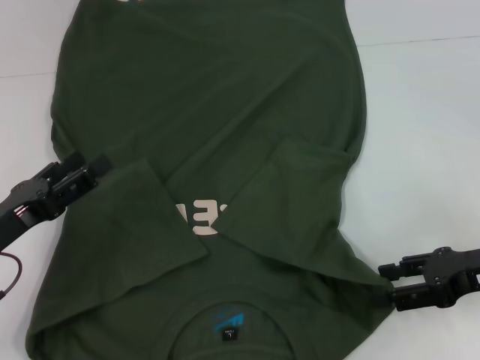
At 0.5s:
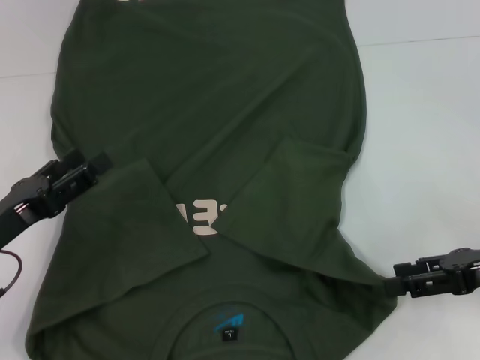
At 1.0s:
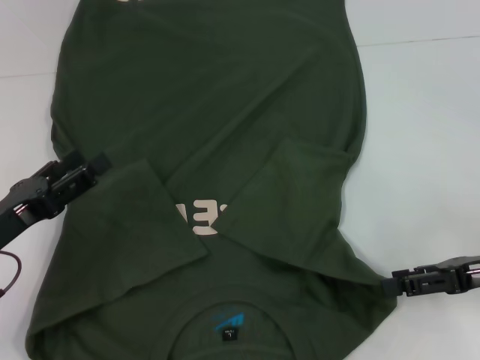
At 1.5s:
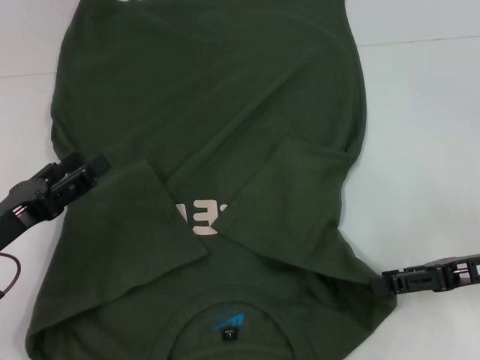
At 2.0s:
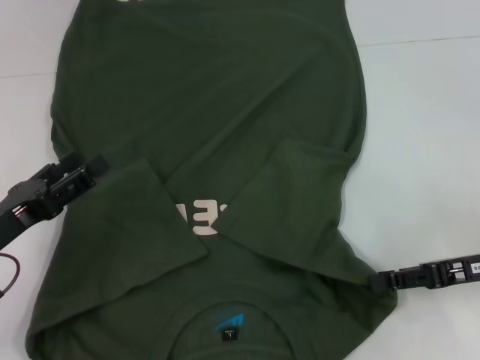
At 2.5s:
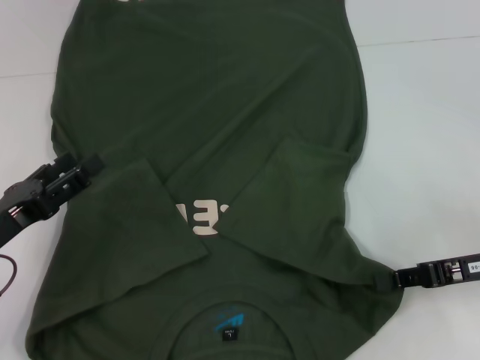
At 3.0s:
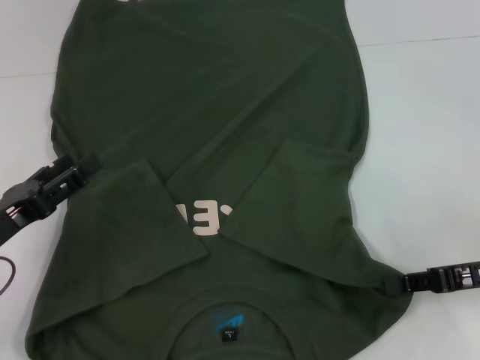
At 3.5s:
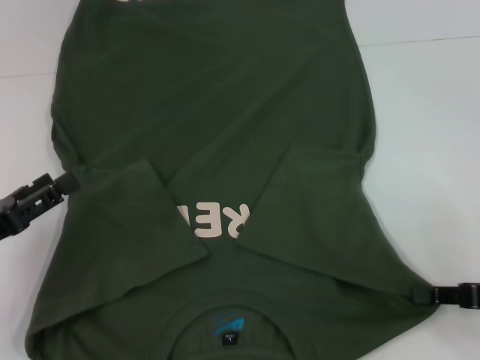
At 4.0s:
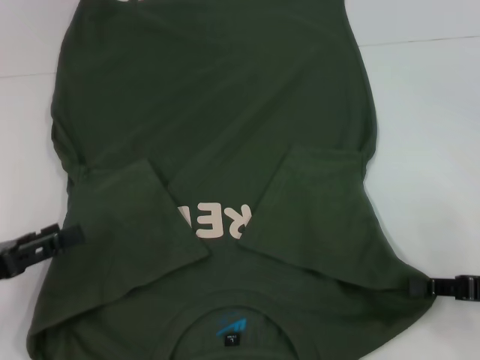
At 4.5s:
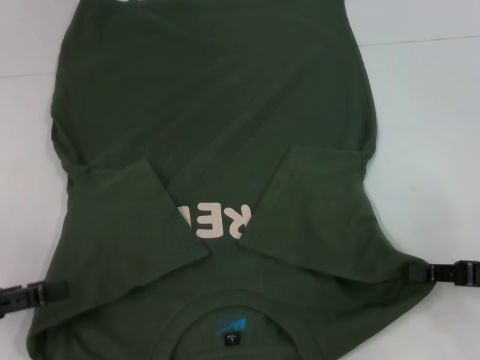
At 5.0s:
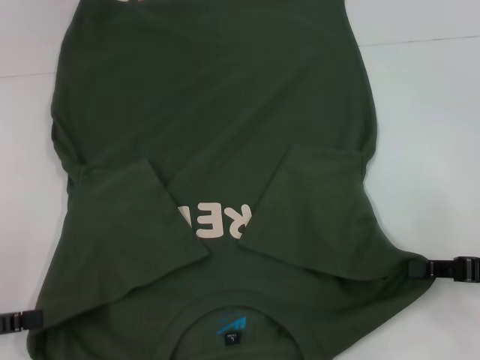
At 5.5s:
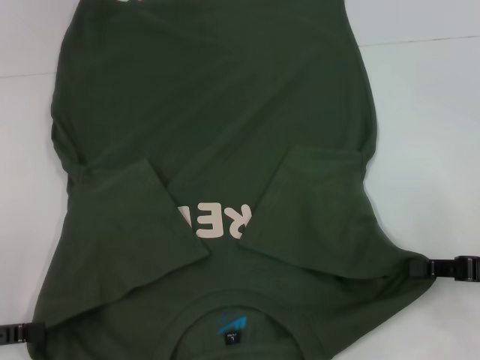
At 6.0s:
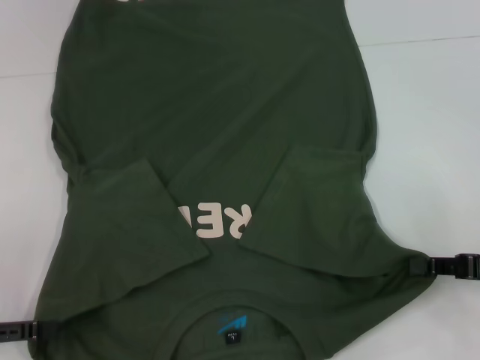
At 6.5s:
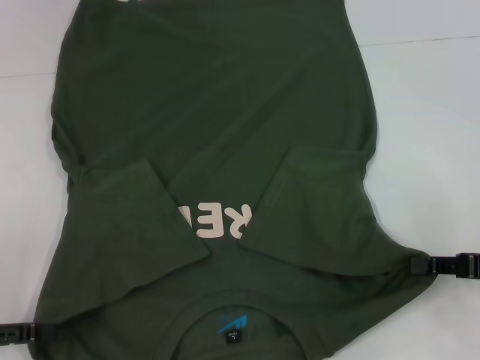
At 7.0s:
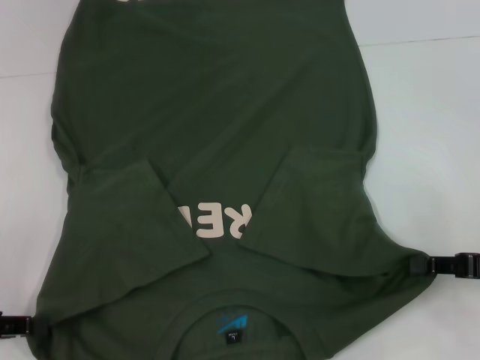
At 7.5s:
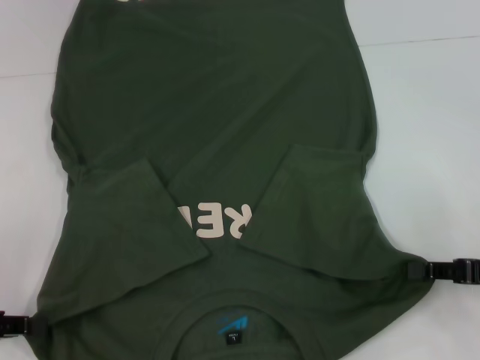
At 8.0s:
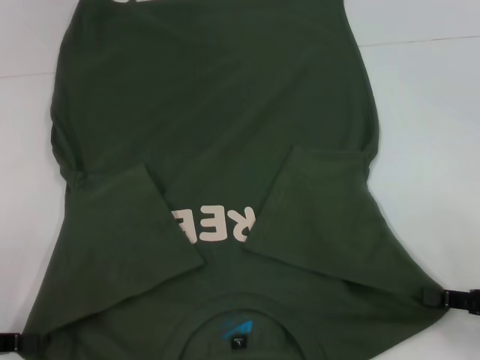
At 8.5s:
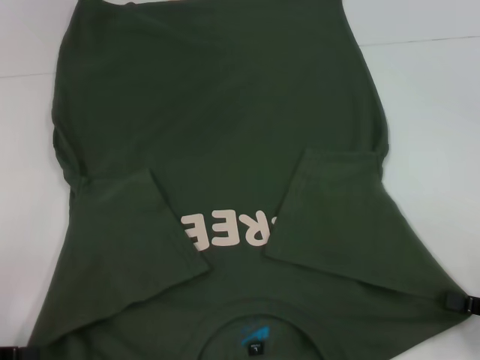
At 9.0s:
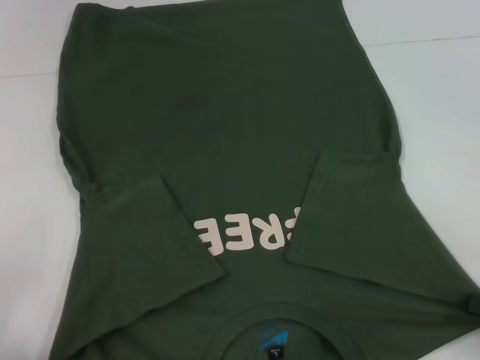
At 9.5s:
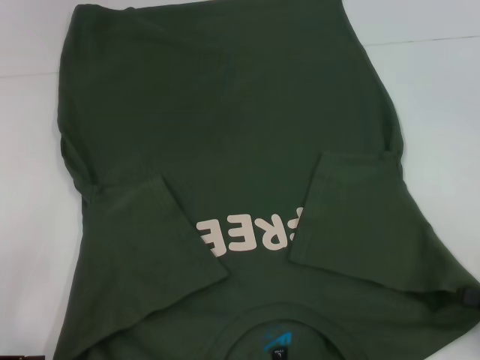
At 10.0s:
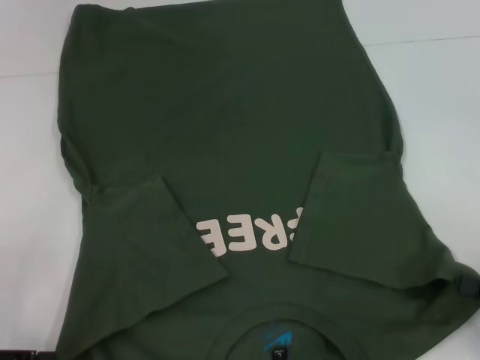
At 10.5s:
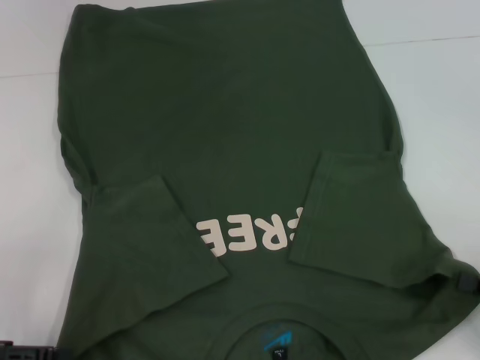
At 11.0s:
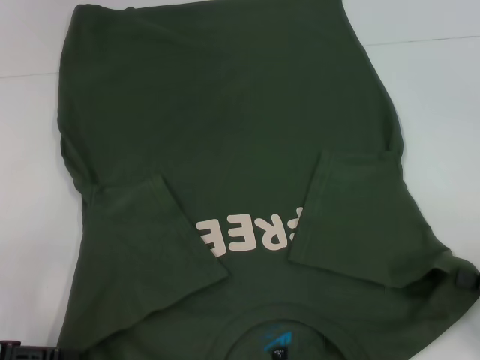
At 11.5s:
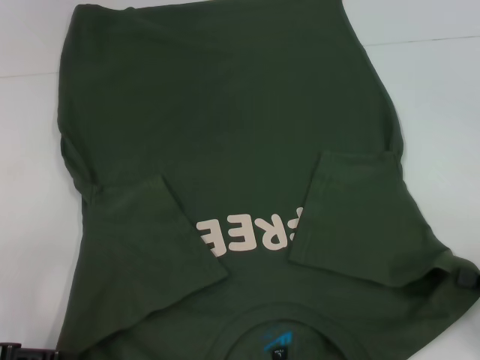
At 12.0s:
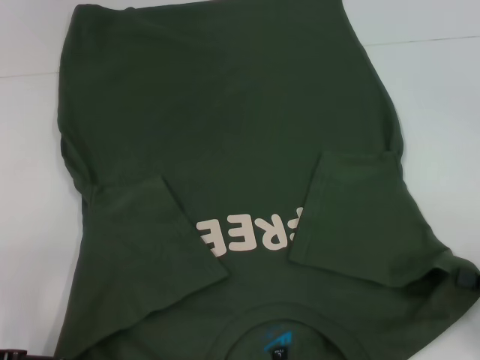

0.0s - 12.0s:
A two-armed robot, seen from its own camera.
Step, 0.0s - 2.5s: Grab the bottom right corner with your right hand.
Step, 3.0s - 8.0s: Grab the bottom left corner with your left hand.
2.0s - 4.0s: The left gripper ends up approximately 5 cm from where it was. Meanwhile the right gripper moves some 5 cm, and closes its fingers.
6.0s - 8.0s: The left gripper closes.
8.0s - 12.0s: The grippers stay close to where they were, moving slightly.

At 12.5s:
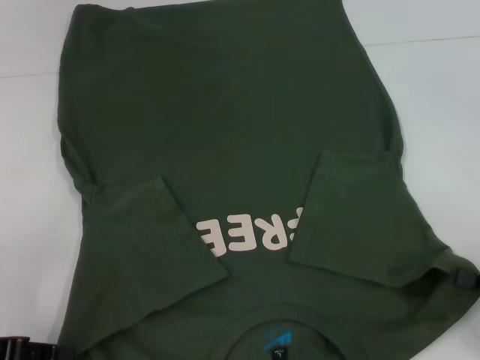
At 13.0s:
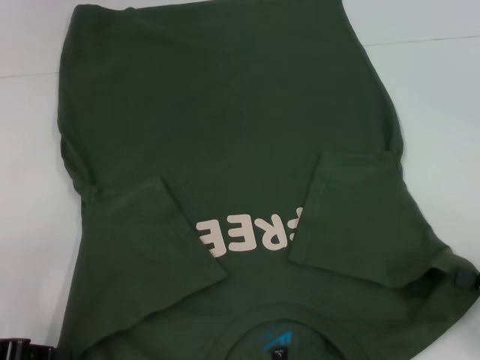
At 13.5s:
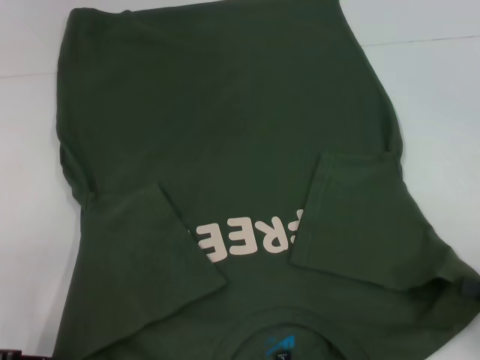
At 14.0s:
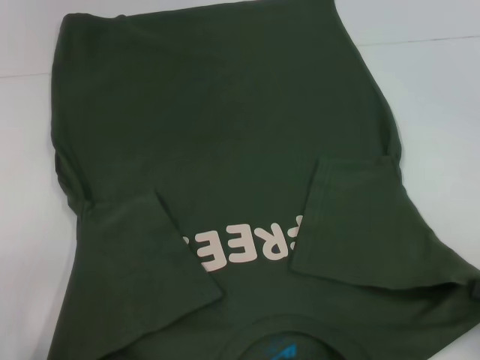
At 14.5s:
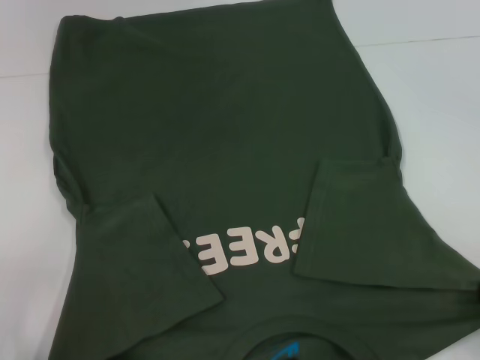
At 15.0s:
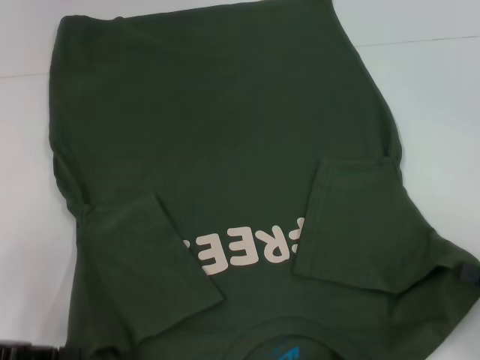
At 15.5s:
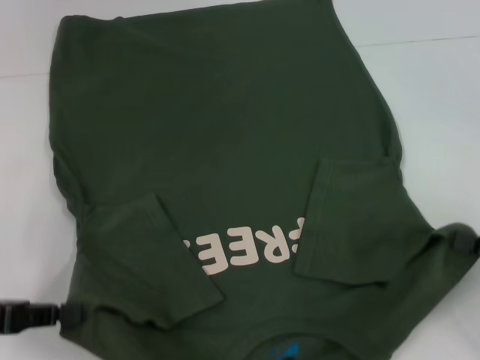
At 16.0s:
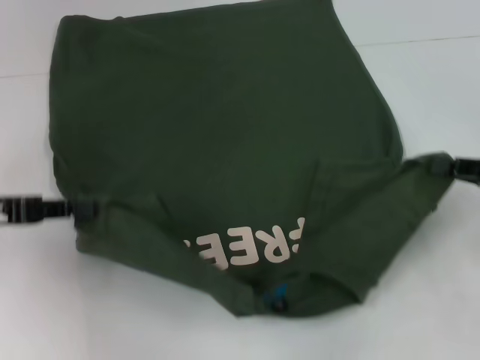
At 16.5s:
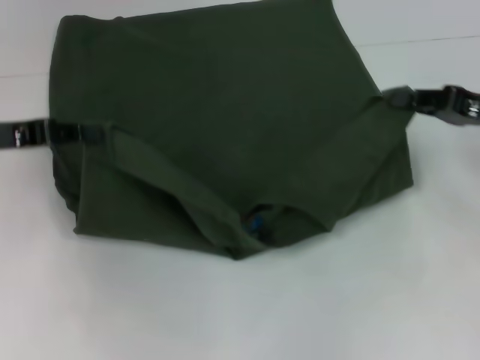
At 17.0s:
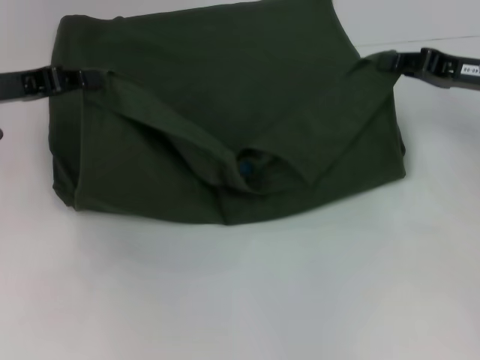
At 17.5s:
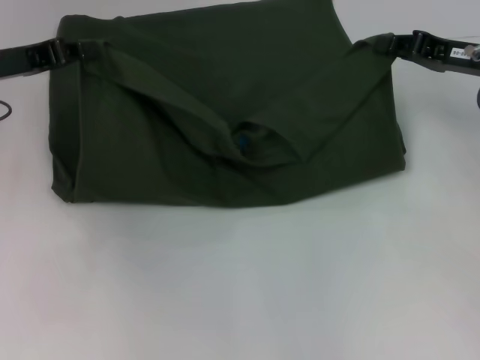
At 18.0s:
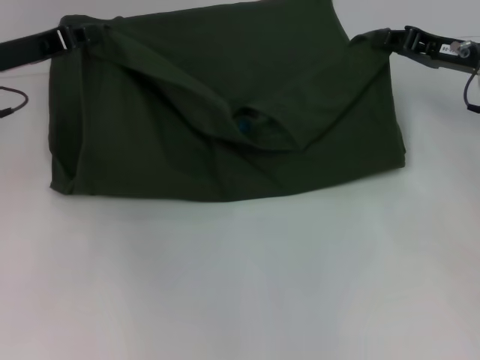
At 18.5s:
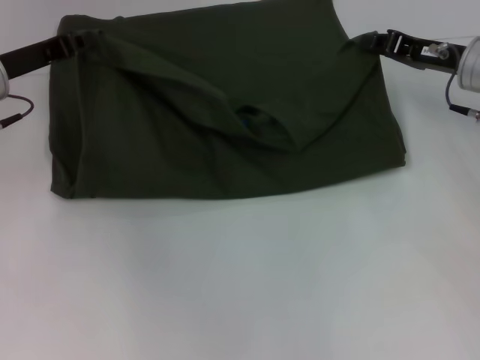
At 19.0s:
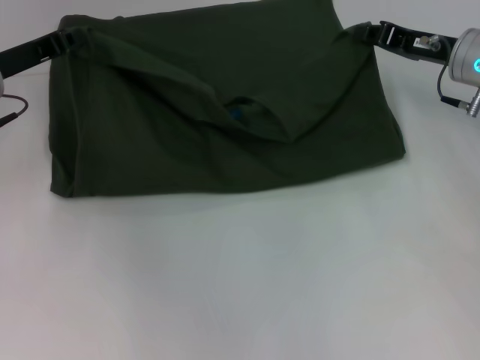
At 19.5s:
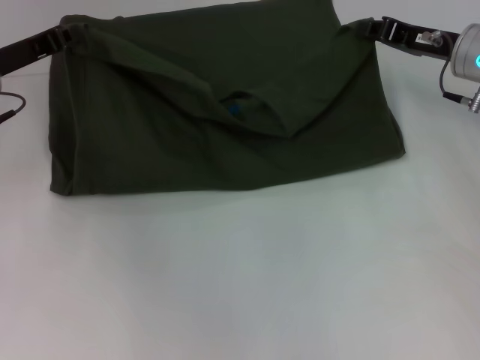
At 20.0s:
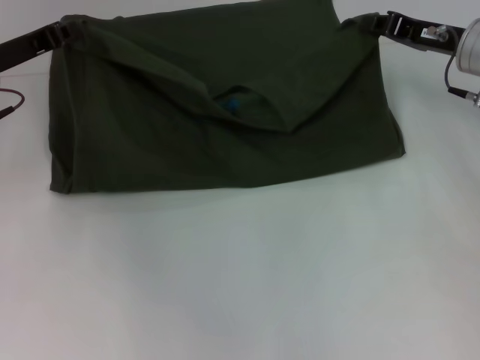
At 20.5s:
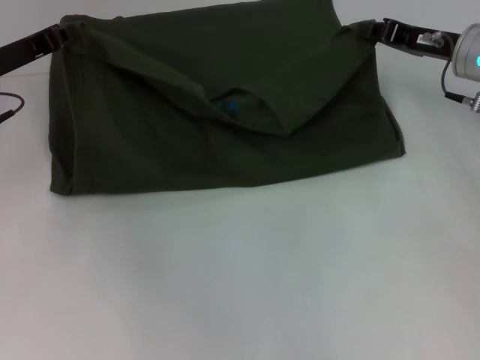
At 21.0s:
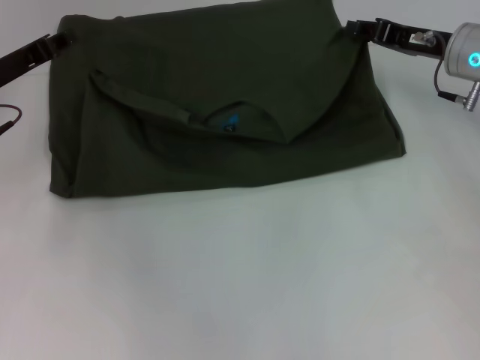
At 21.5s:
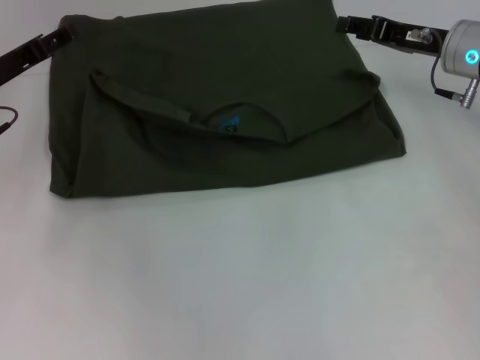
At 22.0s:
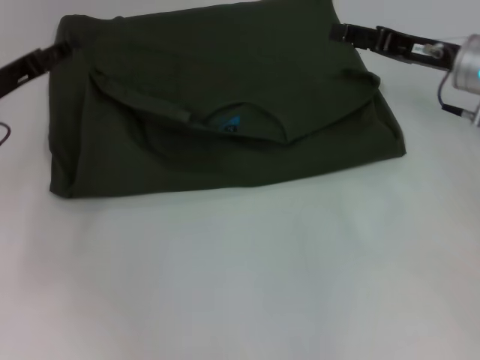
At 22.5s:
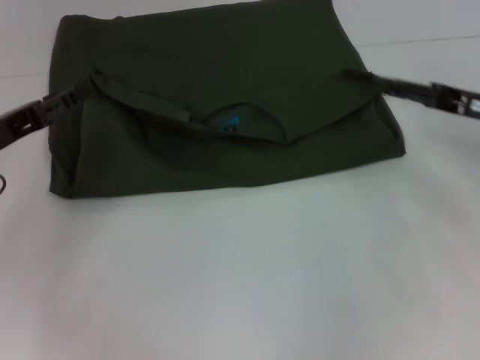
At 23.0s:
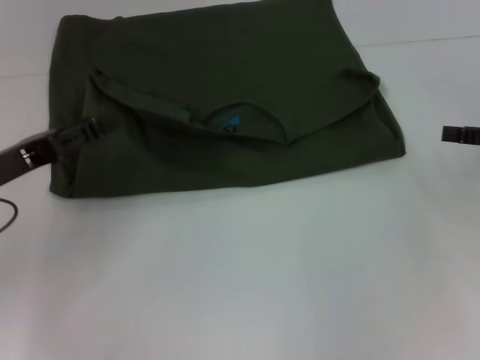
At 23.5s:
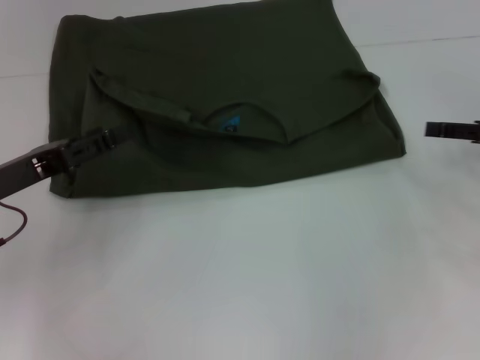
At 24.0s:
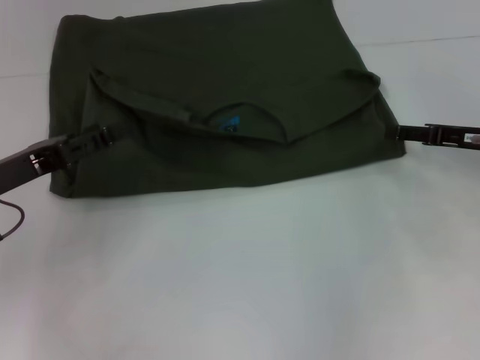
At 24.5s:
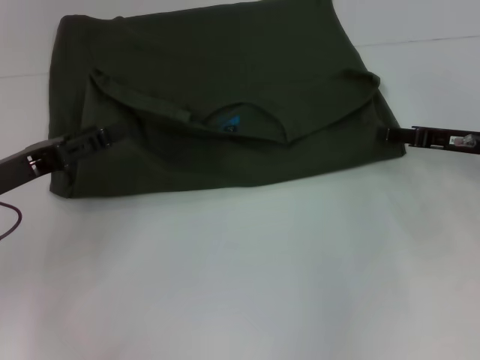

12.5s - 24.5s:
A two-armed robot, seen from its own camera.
Step, 12.5s - 21.5s: Fold the clothes with your left hand.
Step, 12.5s - 21.5s: Fold the clothes with your right hand.
12.5s - 14.5s: There are only small adjustments of the grippers.
14.5s - 16.5s: Both grippers move forward and upward, some 20 cm.
16.5s - 18.5s: The grippers both shift forward by approximately 5 cm.
18.5s - 20.5s: The grippers make only small movements.
20.5s - 22.5s: Both grippers move backward, about 10 cm. The right gripper opens its fingers; the left gripper opens.

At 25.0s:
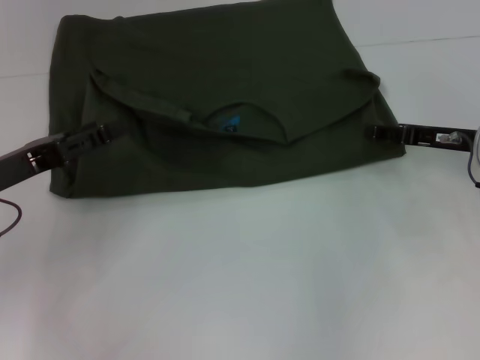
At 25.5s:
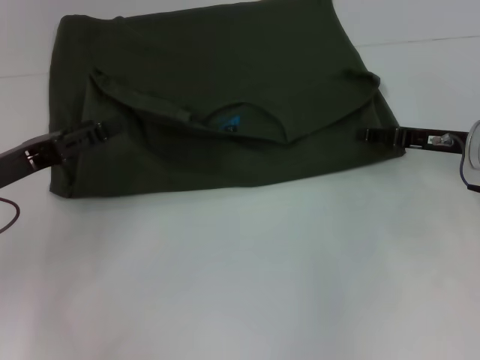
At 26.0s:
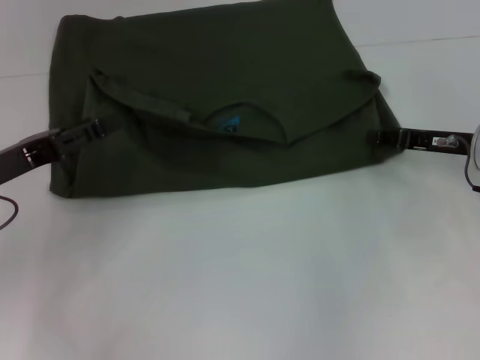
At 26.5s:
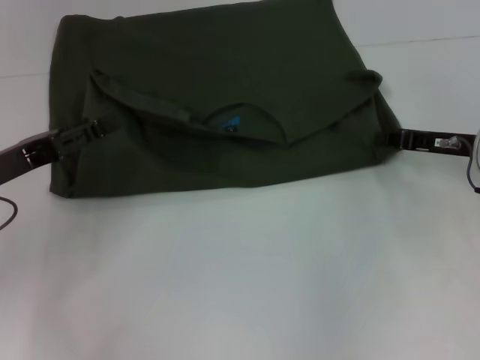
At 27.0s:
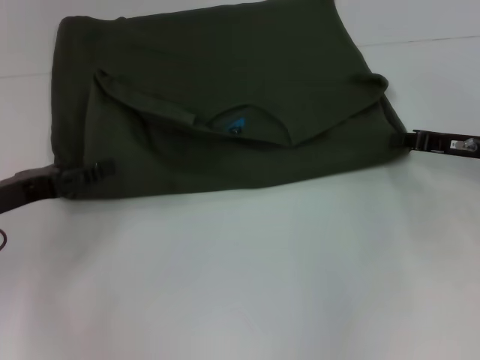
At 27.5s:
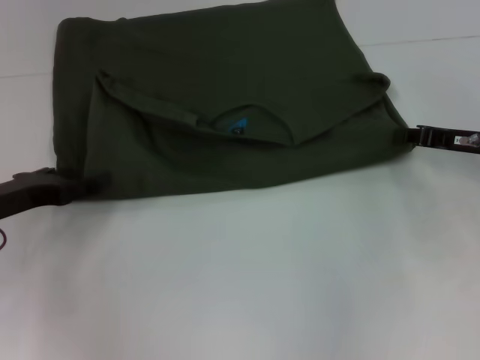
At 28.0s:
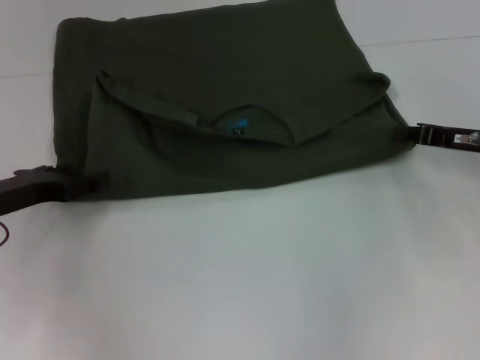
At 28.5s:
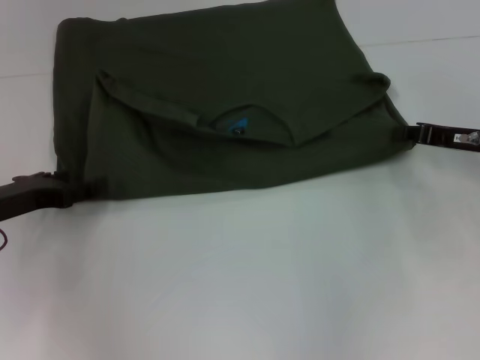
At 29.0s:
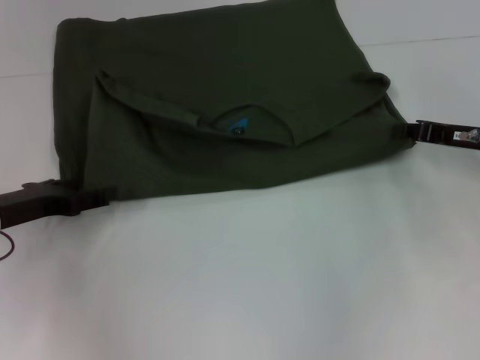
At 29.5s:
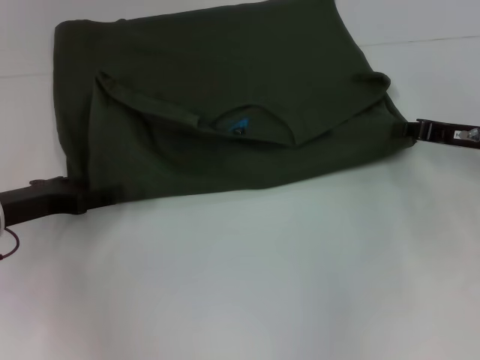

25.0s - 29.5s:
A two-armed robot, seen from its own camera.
25.0s - 27.0s: The right gripper closes up.
